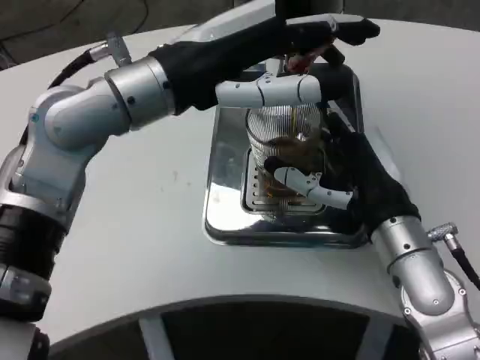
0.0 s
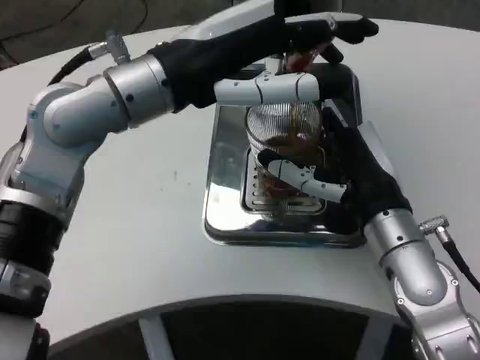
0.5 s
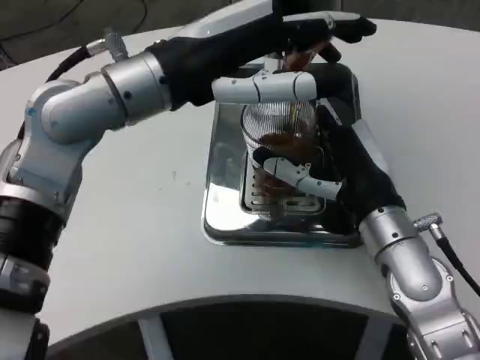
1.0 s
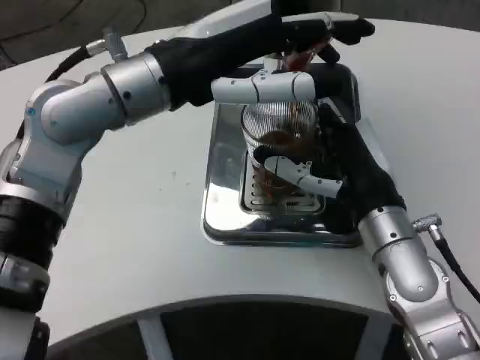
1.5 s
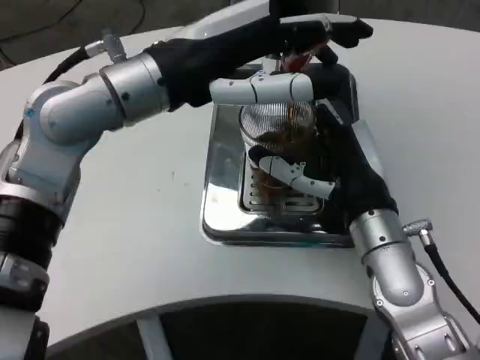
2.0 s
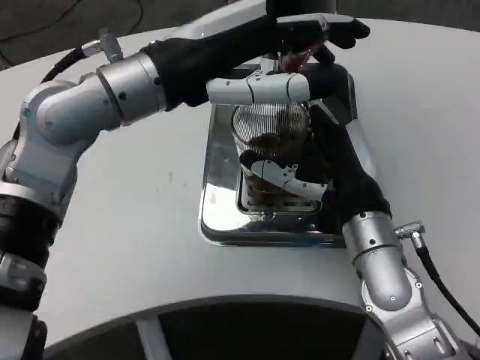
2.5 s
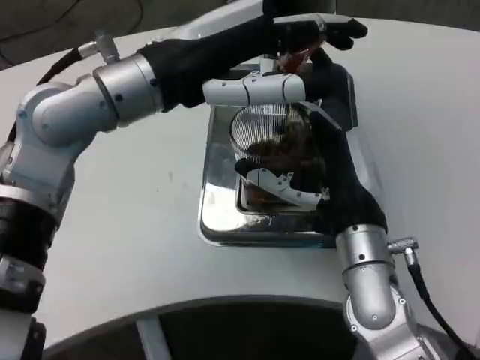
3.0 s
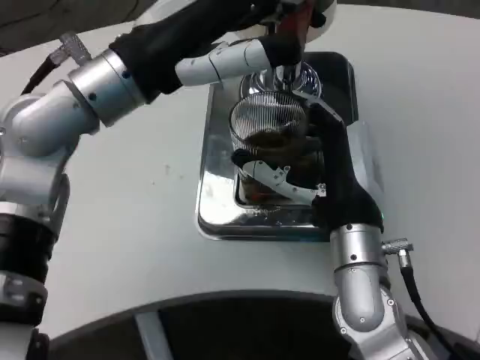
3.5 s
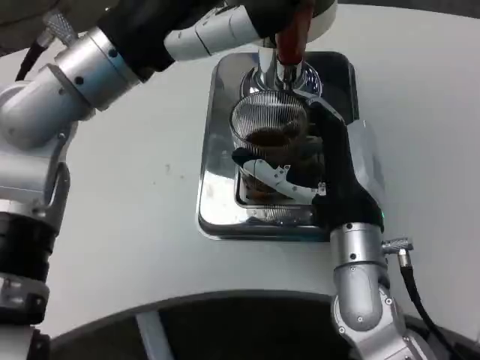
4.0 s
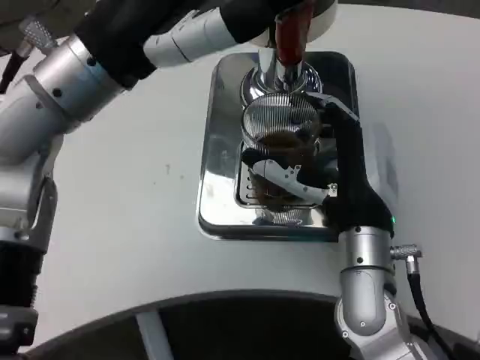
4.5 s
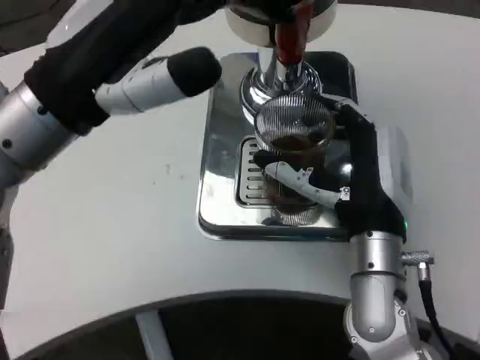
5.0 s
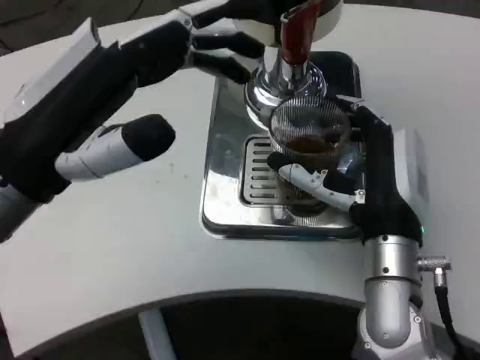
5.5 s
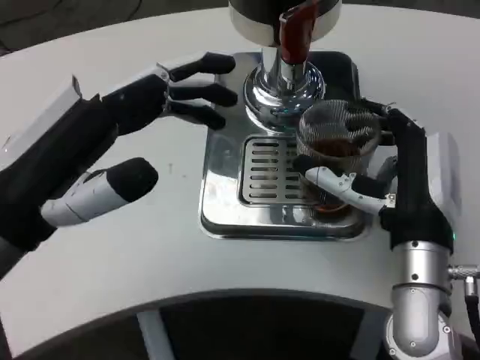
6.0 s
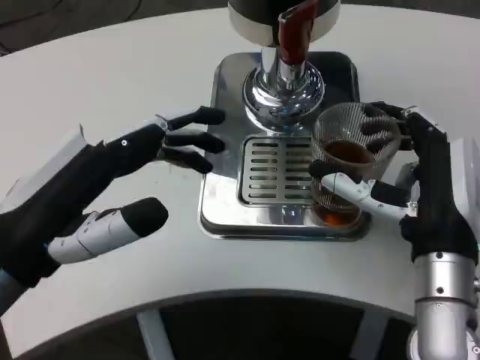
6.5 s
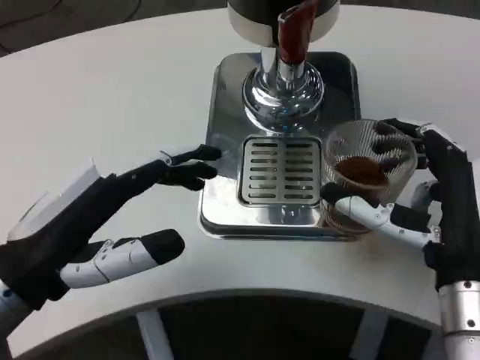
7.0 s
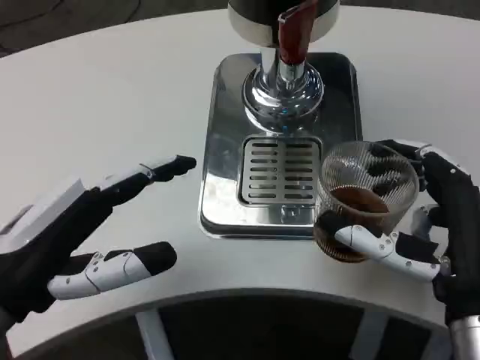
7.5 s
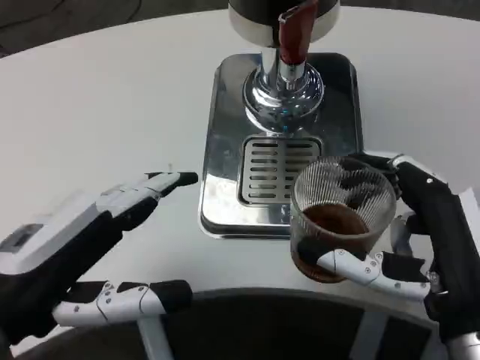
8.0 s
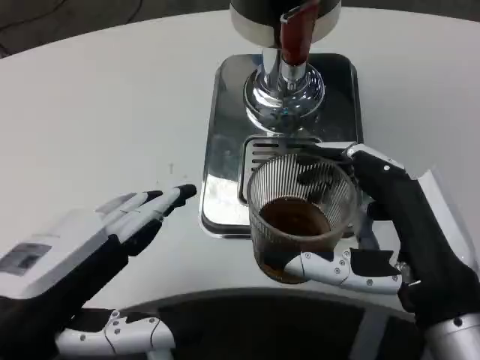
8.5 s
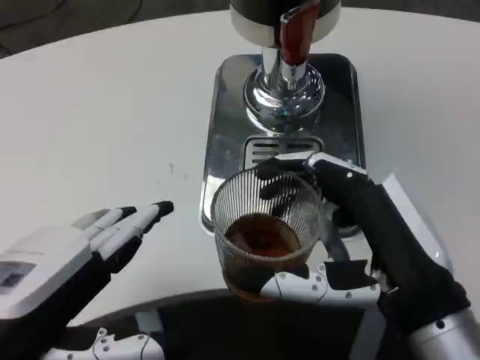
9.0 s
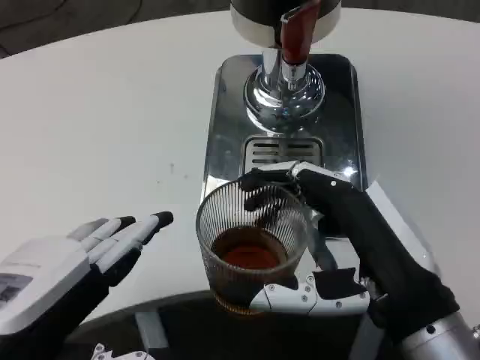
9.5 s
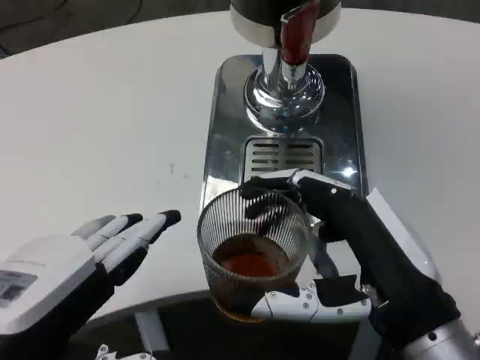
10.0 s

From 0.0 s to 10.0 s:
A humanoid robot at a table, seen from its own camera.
Task of the whole recording: Grasp the cup under the faucet to collect the drink, then remove the cup.
From 4.0 s to 6.0 s: The left hand travels backward, downward and to the left by about 15 cm.
From 6.0 s to 8.0 s: The left hand shifts by approximately 5 cm. The right hand travels backward by roughly 10 cm.
From 8.0 s to 10.0 s: The left hand travels backward by roughly 5 cm.

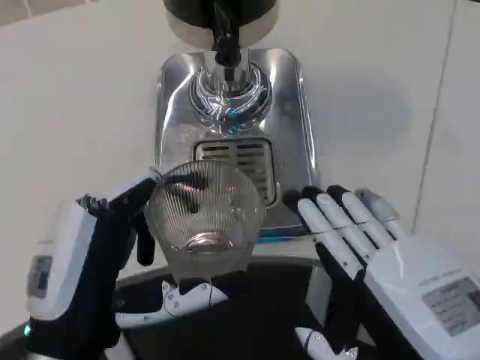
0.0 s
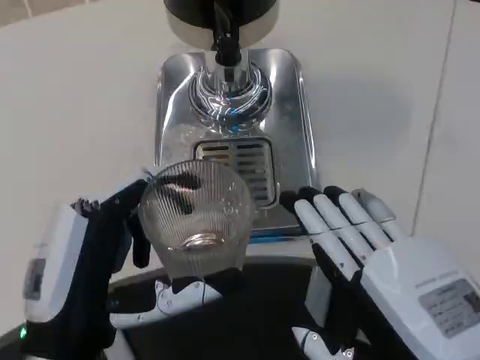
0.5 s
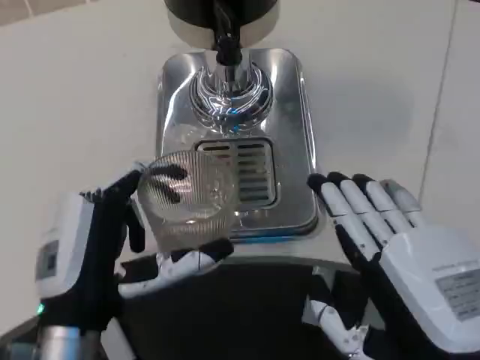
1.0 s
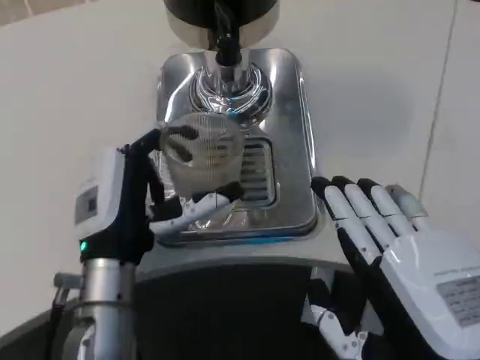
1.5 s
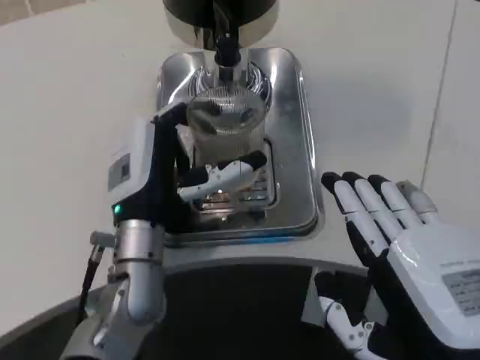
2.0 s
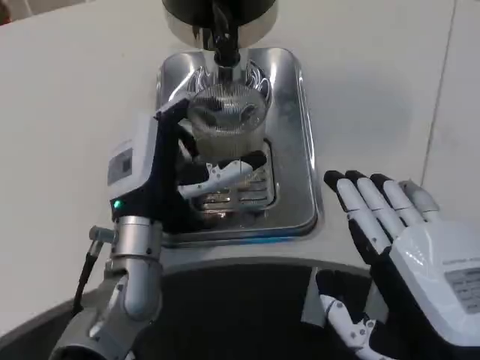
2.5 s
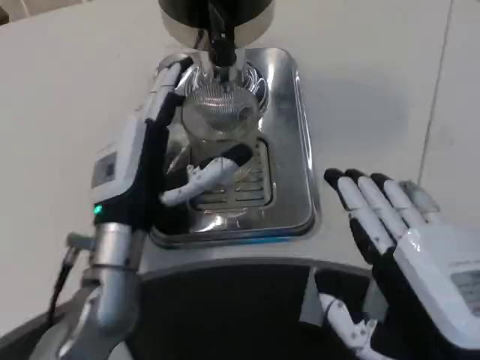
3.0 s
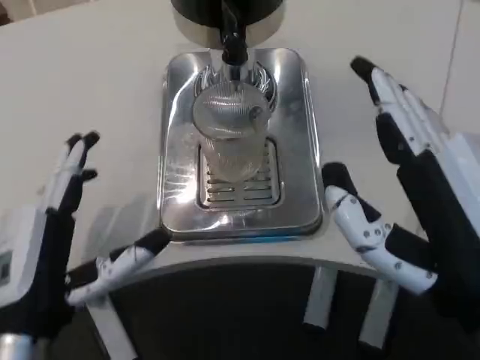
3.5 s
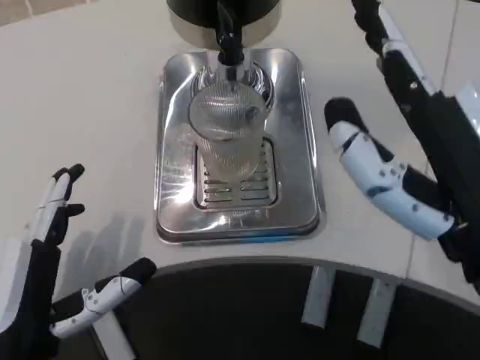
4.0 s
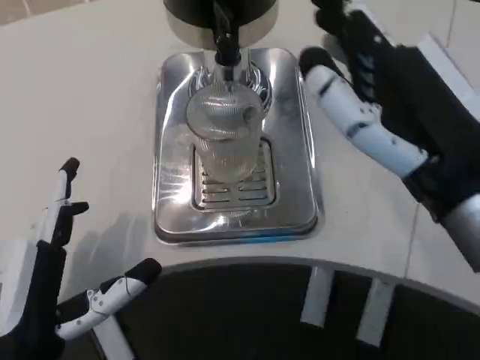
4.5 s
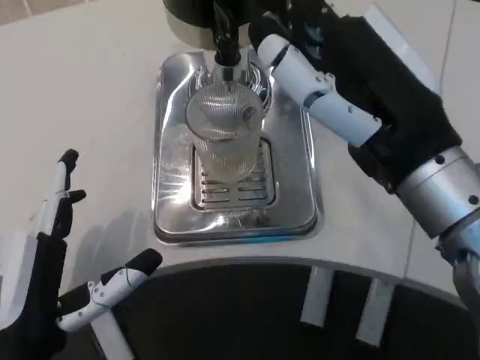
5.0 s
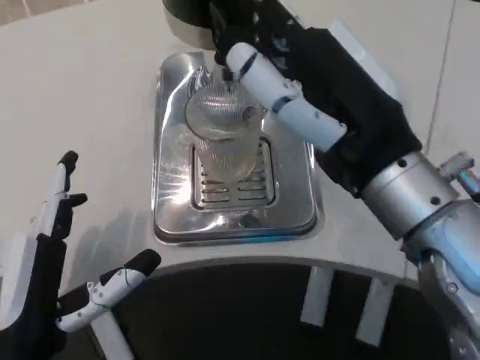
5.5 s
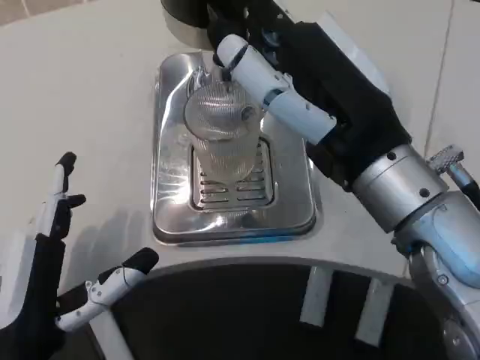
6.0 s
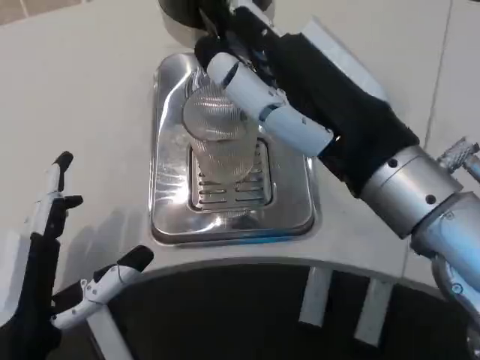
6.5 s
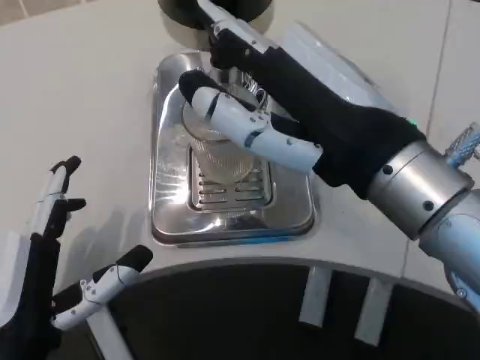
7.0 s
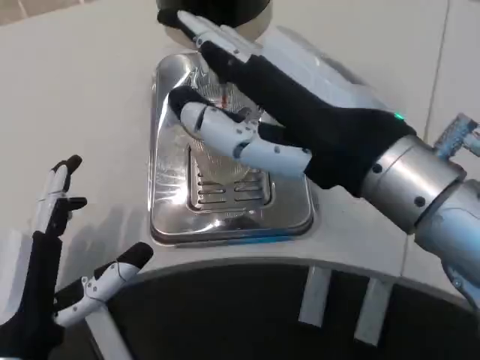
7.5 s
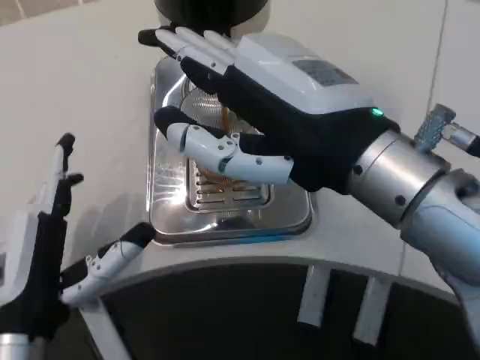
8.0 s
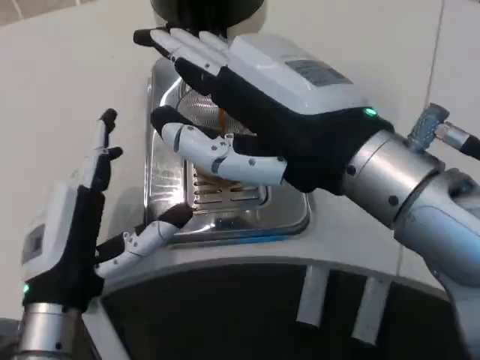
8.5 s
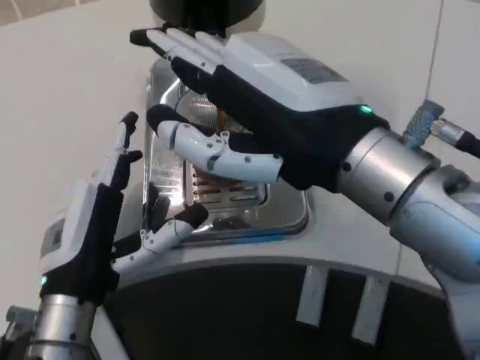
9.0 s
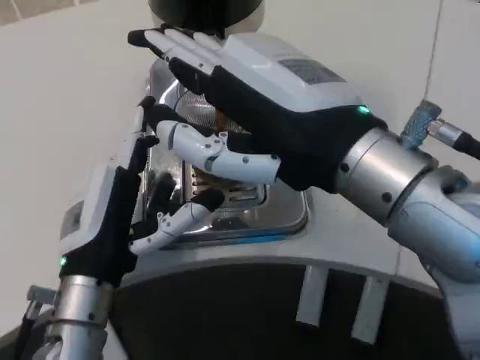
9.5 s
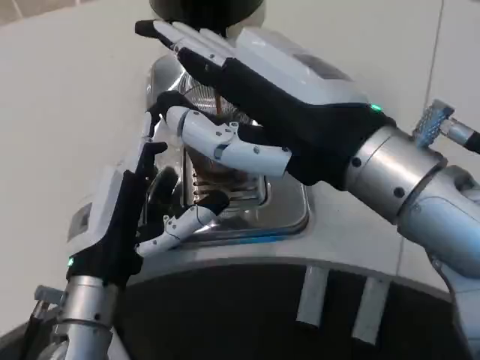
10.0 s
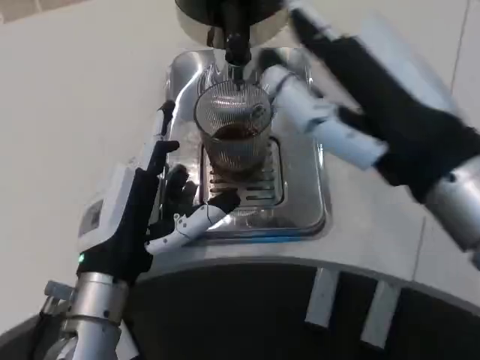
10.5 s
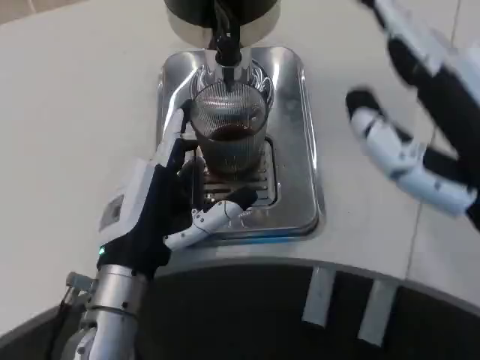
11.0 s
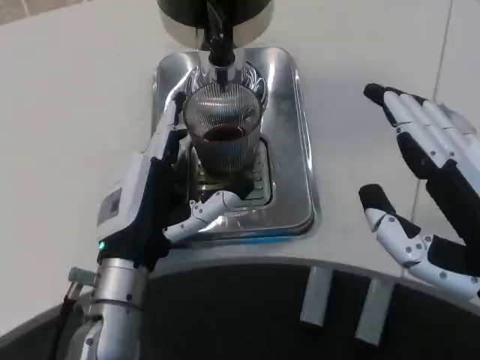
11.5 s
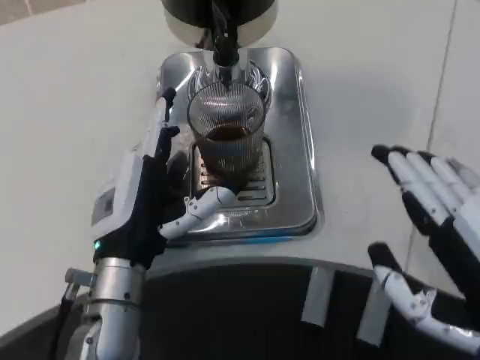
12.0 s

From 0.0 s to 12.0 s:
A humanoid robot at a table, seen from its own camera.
Task of the whole recording: Grasp the cup under the faucet to collect the drink, then remove the cup.
From 0.0 s to 2.0 s: The left hand shifts about 15 cm forward.
From 2.0 s to 4.0 s: The left hand shifts roughly 15 cm backward and to the left, while the right hand shifts approximately 5 cm upward.
From 4.0 s to 6.0 s: The right hand moves forward, about 10 cm.
From 8.0 s to 10.0 s: The left hand moves forward, some 5 cm.
From 10.0 s to 12.0 s: The right hand shifts approximately 15 cm backward, downward and to the right.

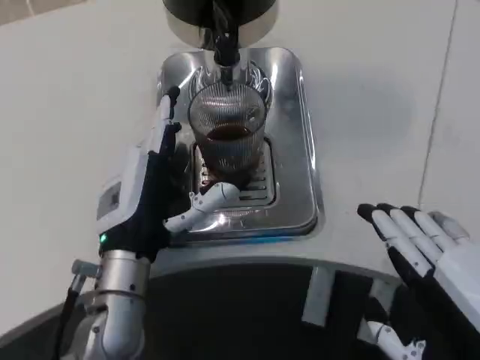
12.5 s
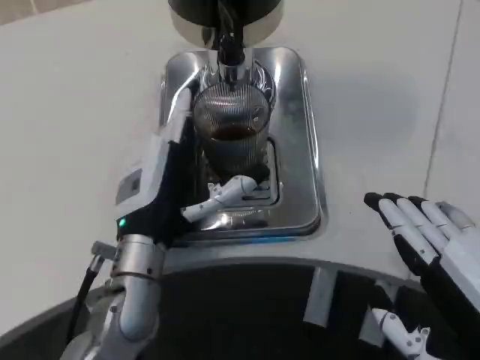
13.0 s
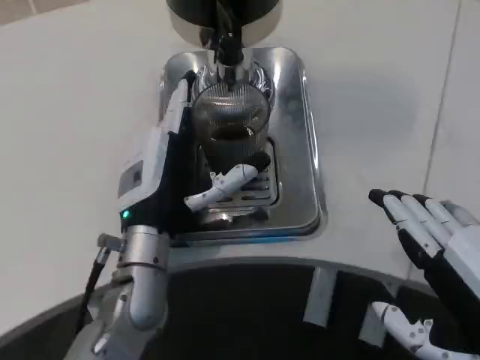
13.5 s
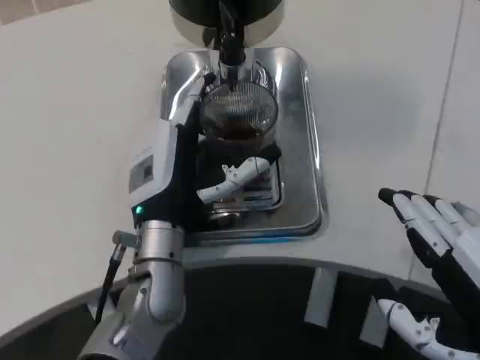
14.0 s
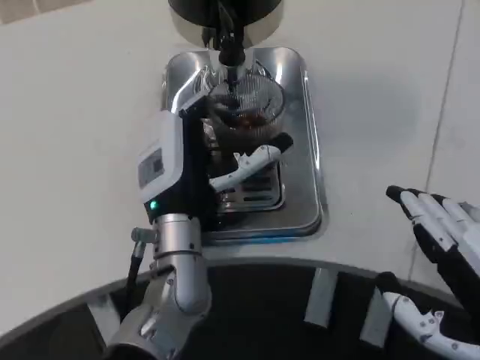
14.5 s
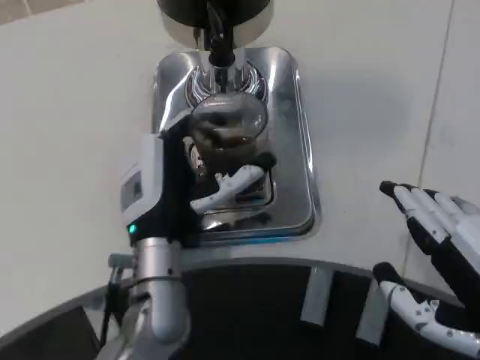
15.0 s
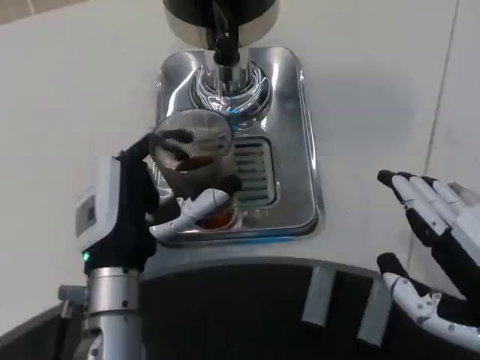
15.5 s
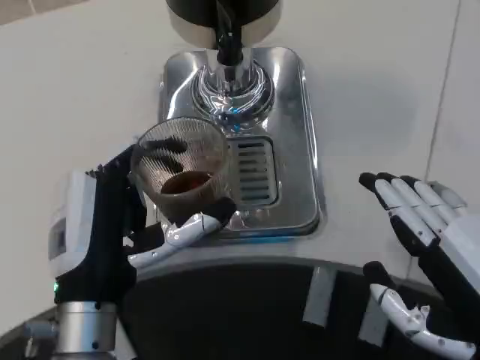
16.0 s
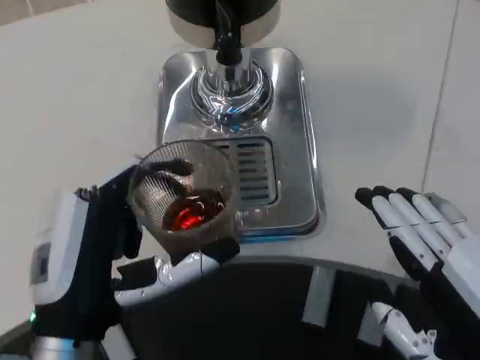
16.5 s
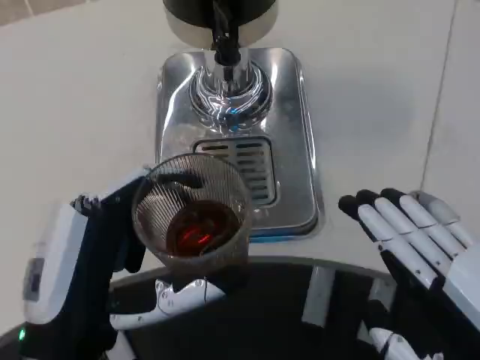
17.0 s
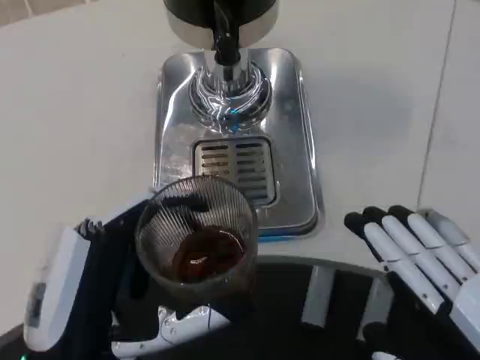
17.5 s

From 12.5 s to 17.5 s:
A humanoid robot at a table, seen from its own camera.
Task of the whole recording: Grasp the cup under the faucet to collect the drink, then remove the cup.
From 15.0 s to 17.5 s: The right hand shifts by roughly 5 cm. Meanwhile the left hand travels backward and to the left by roughly 15 cm.
